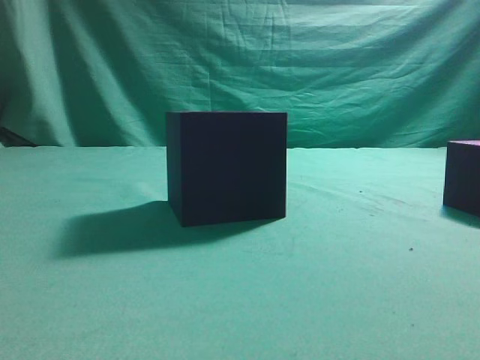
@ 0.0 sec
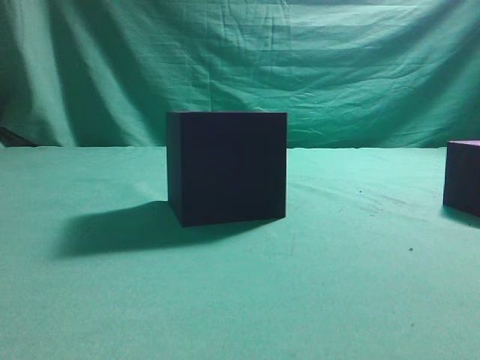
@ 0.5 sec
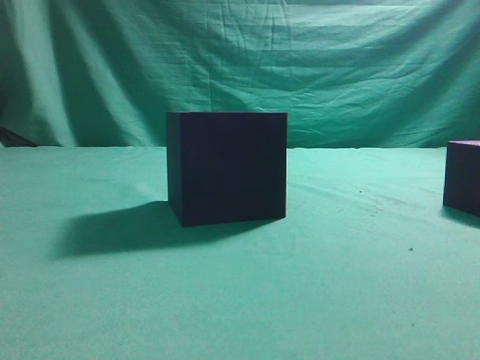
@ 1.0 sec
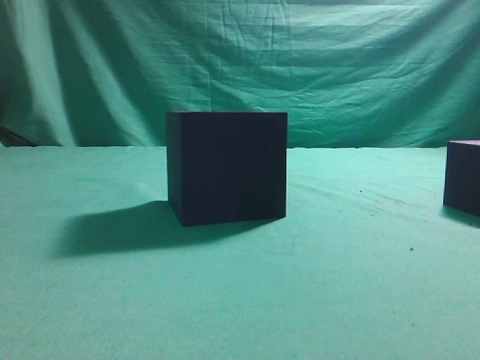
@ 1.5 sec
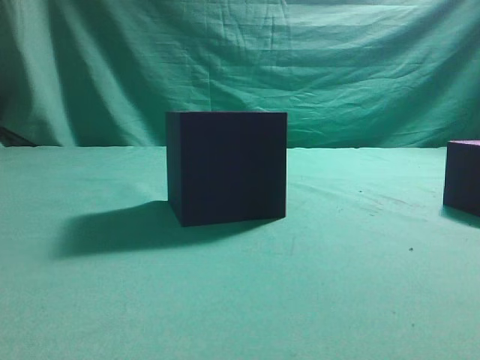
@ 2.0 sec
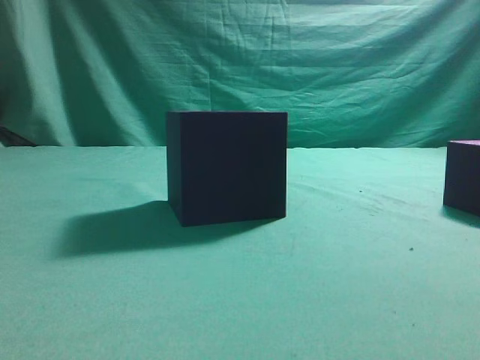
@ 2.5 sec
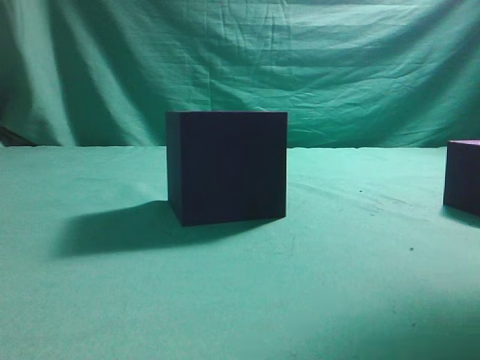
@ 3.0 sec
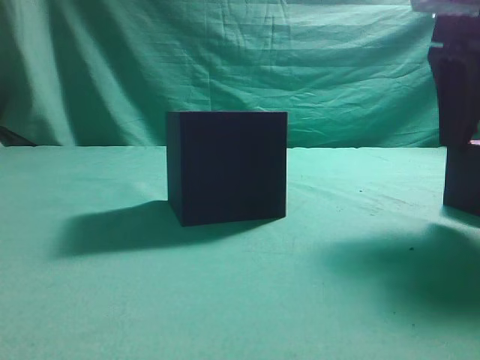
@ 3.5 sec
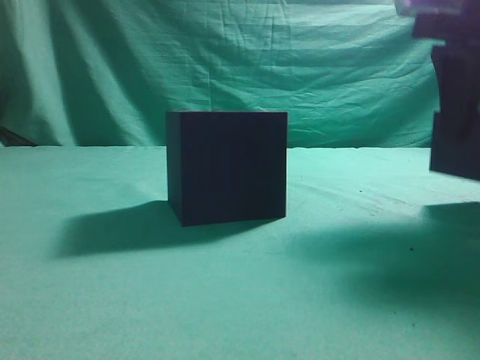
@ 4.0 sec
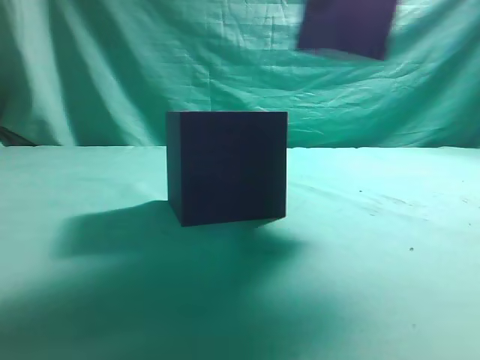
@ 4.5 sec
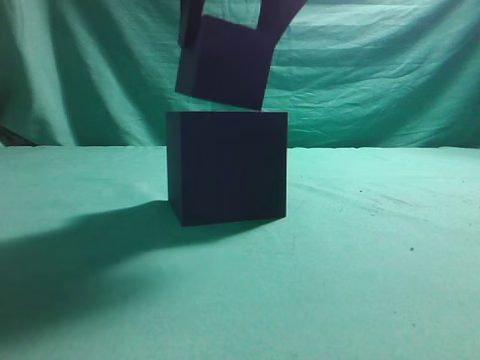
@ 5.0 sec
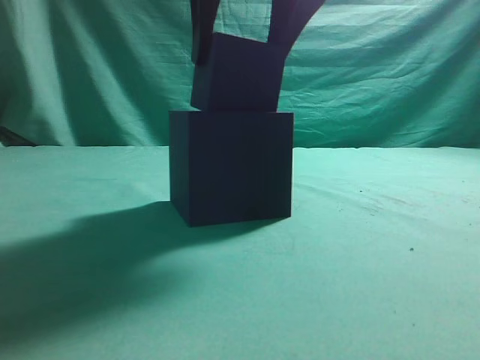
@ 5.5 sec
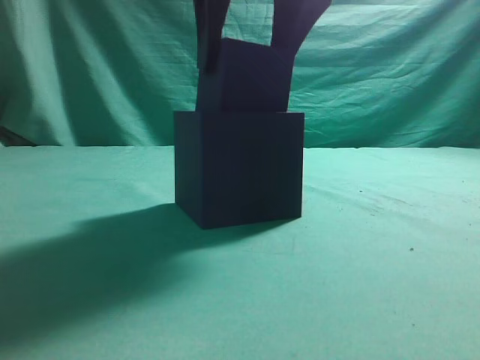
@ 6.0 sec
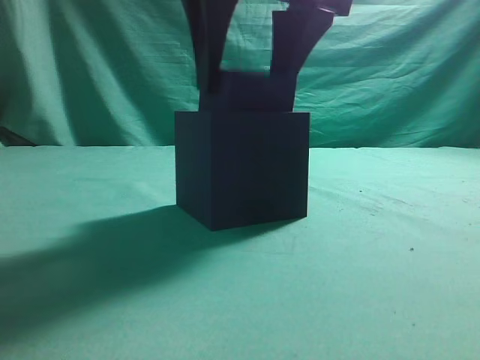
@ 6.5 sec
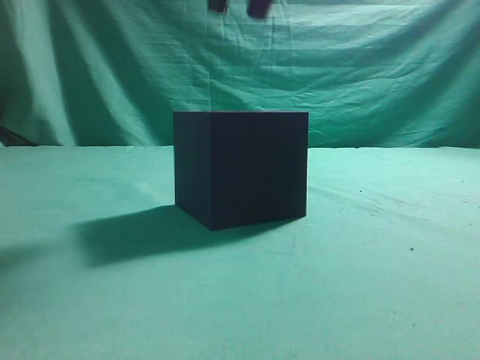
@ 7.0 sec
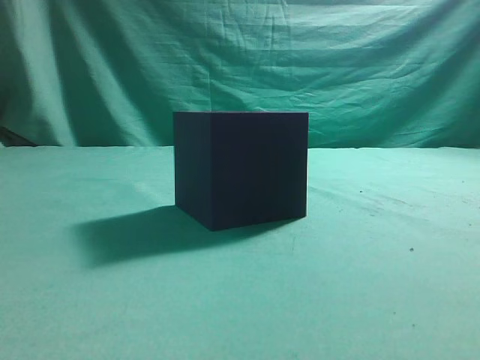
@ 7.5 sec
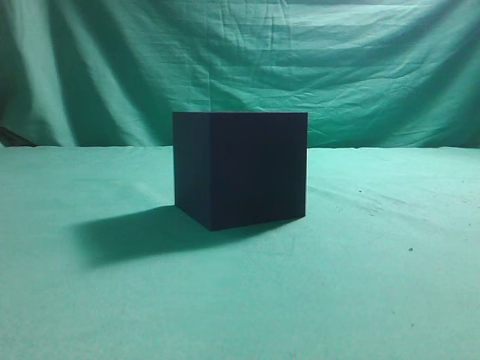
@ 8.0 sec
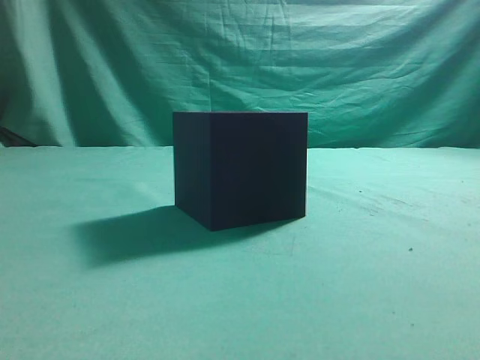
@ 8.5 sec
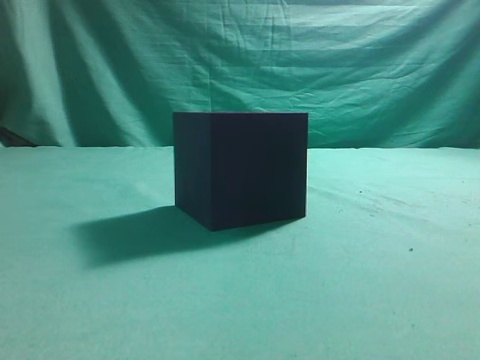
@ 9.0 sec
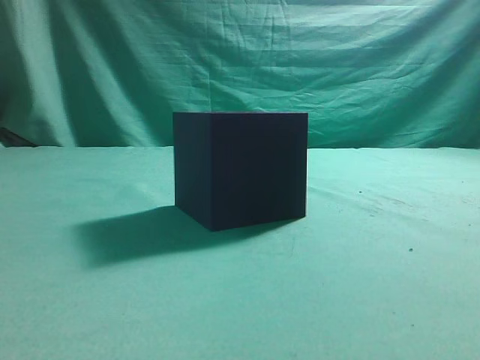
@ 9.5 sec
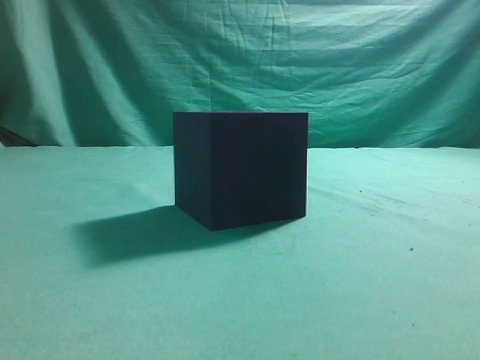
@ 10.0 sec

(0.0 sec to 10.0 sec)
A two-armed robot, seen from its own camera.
Task of the whole recording: pick up the cube block and place it into the cube groove.
Step, 0.0 sec - 4.0 sec: Grasp the cube.
Step, 4.5 sec - 6.5 sec: Place cube into the cube-shaped recess.
2.0 sec - 4.0 sec: The right gripper is displaced forward by roughly 20 cm, and opens up.
4.0 sec - 6.0 sec: The right gripper goes about 20 cm to the left.
6.0 sec - 8.0 sec: The right gripper travels backward, to the right and upward by some 25 cm, and closes its fingers.
